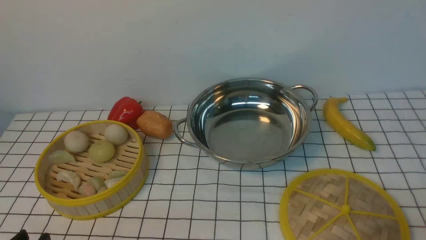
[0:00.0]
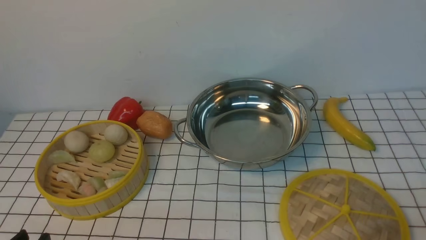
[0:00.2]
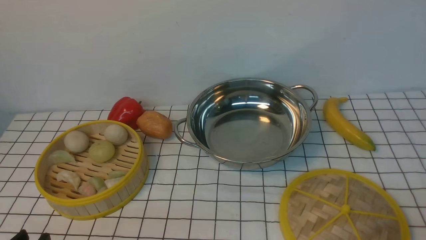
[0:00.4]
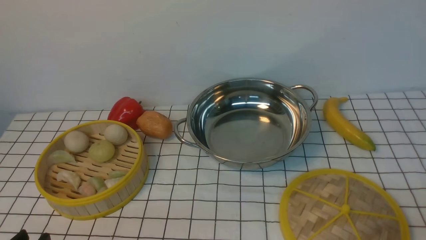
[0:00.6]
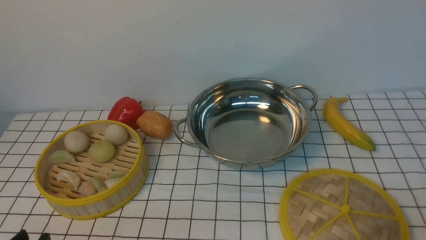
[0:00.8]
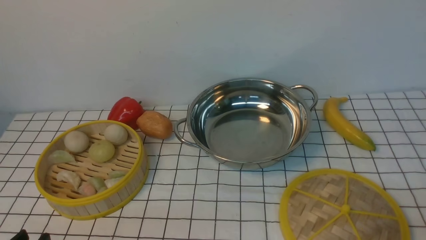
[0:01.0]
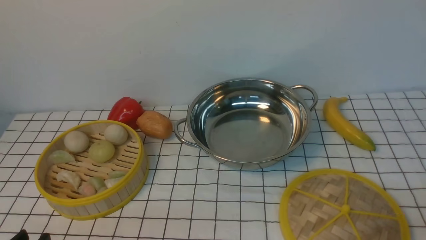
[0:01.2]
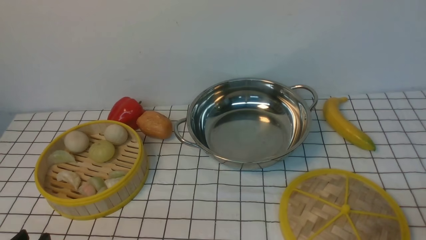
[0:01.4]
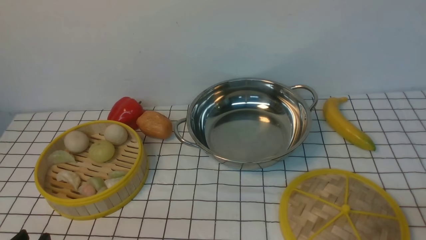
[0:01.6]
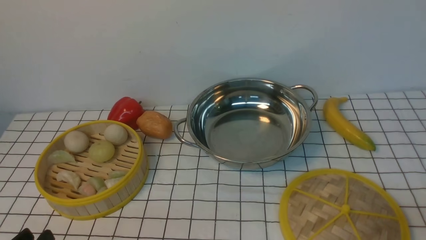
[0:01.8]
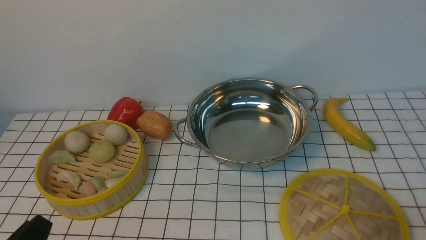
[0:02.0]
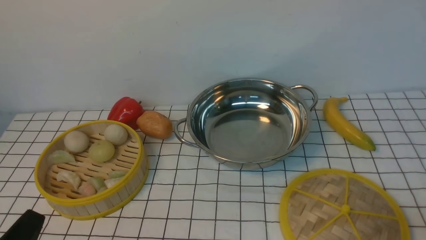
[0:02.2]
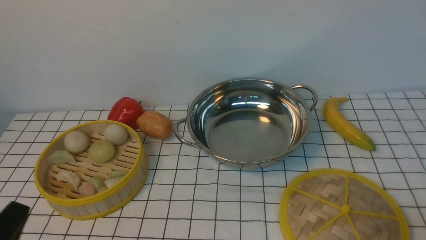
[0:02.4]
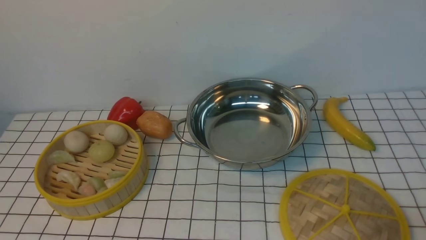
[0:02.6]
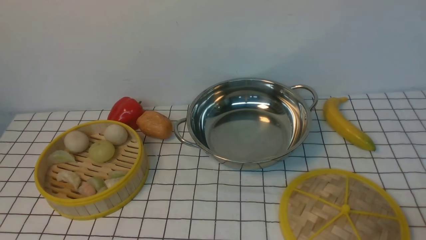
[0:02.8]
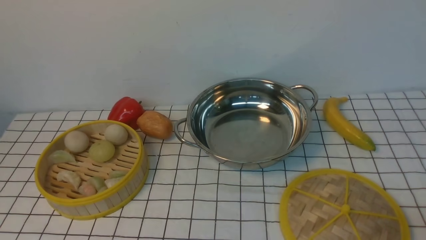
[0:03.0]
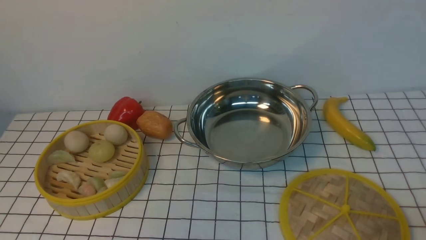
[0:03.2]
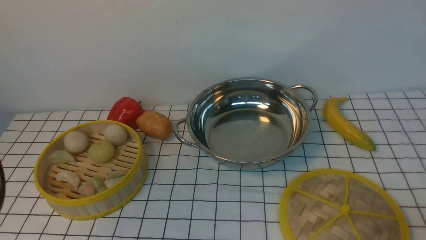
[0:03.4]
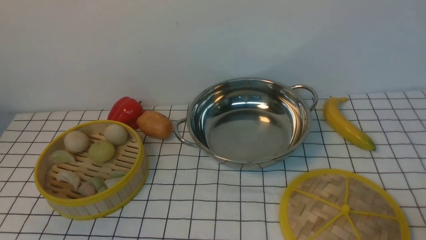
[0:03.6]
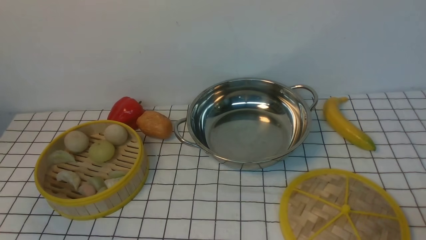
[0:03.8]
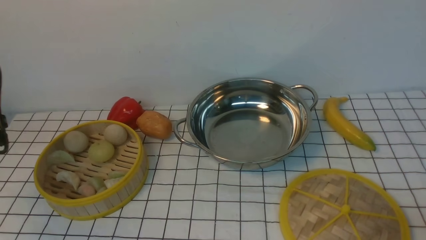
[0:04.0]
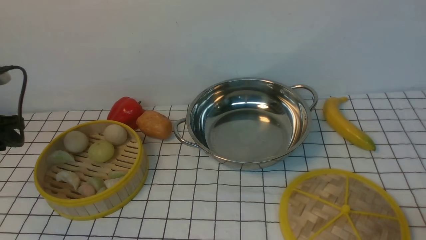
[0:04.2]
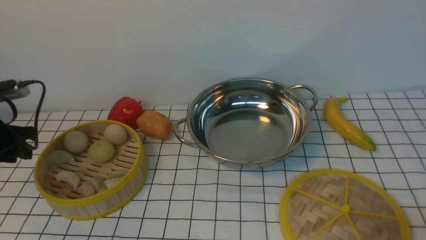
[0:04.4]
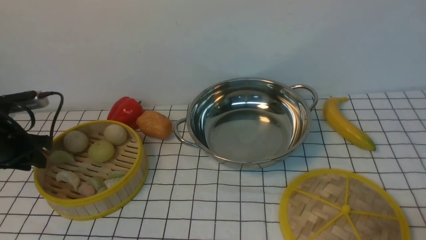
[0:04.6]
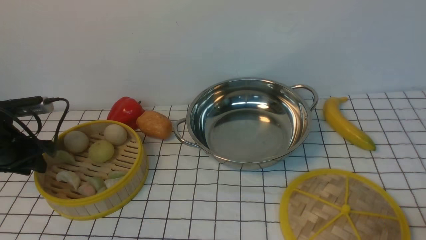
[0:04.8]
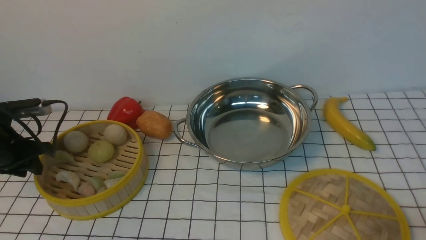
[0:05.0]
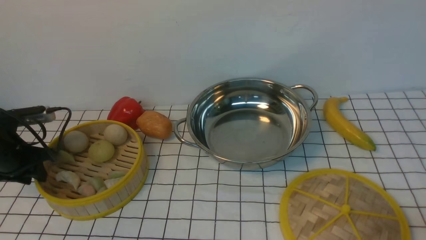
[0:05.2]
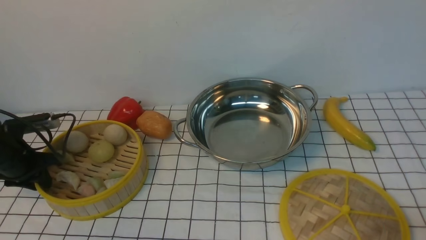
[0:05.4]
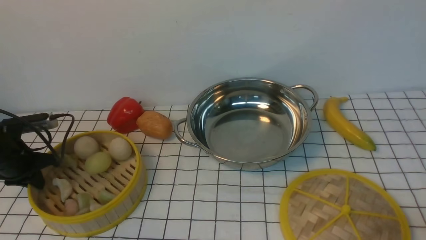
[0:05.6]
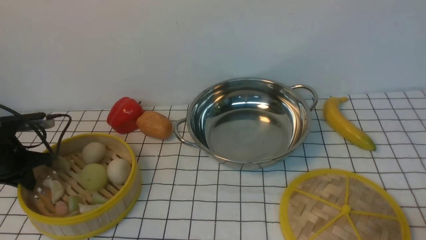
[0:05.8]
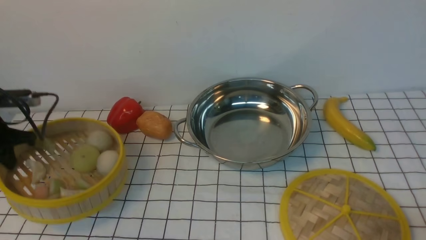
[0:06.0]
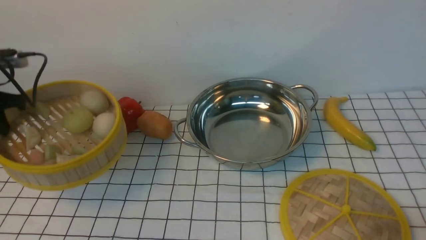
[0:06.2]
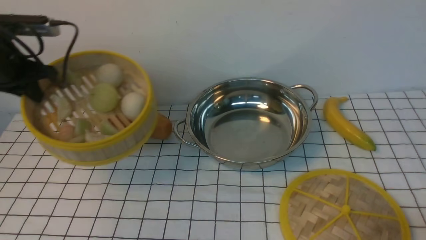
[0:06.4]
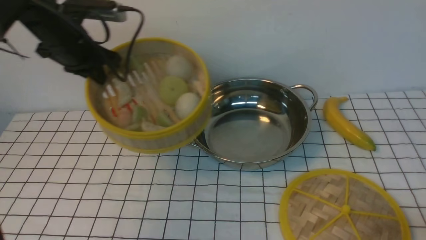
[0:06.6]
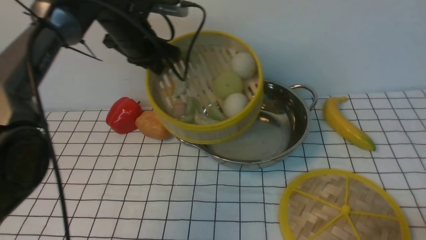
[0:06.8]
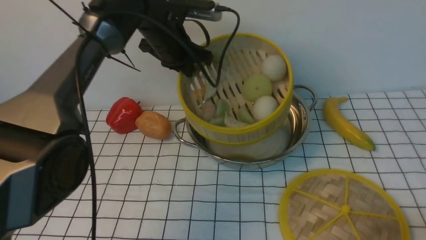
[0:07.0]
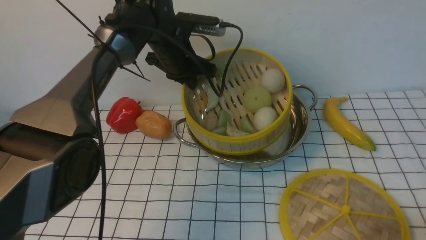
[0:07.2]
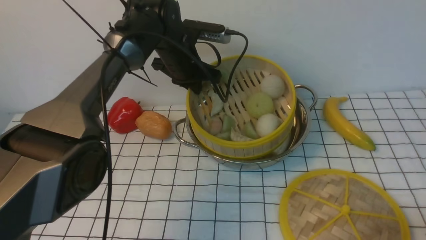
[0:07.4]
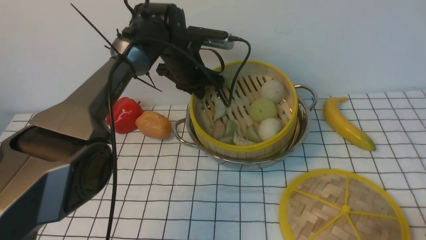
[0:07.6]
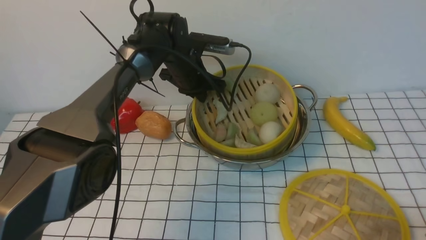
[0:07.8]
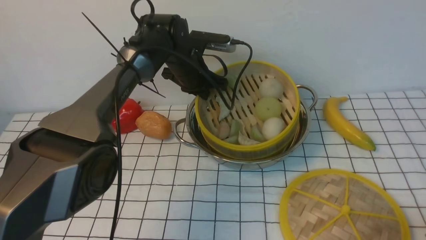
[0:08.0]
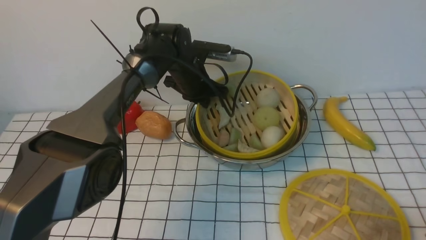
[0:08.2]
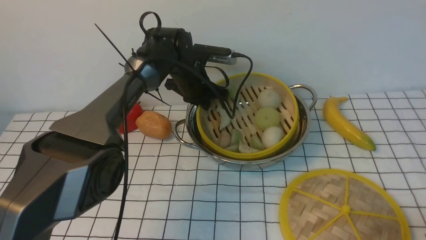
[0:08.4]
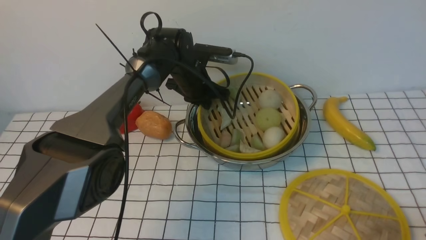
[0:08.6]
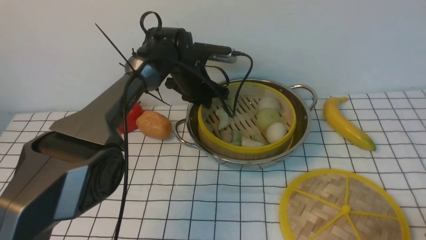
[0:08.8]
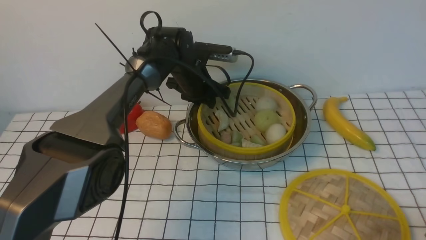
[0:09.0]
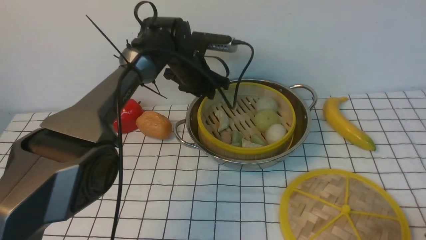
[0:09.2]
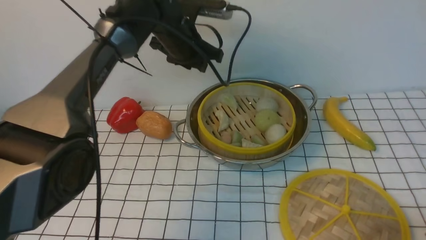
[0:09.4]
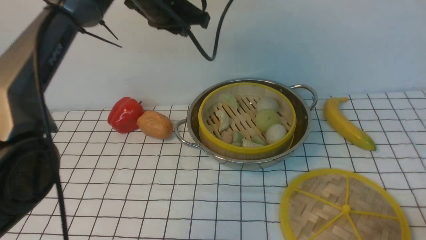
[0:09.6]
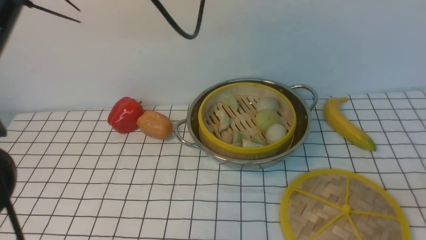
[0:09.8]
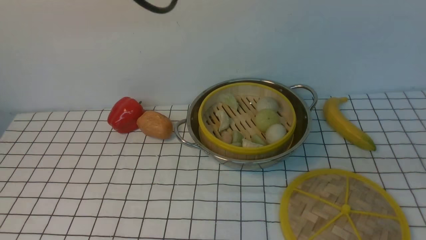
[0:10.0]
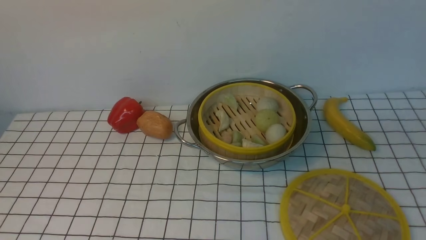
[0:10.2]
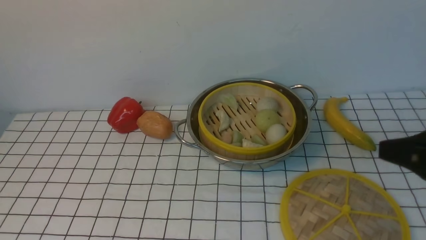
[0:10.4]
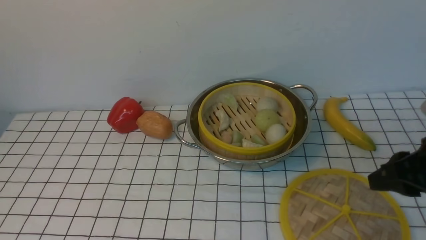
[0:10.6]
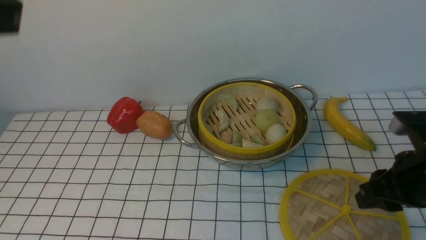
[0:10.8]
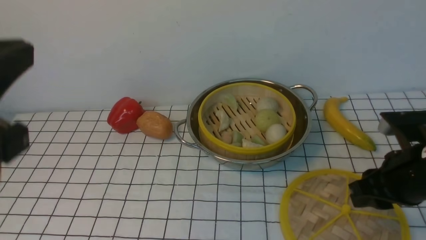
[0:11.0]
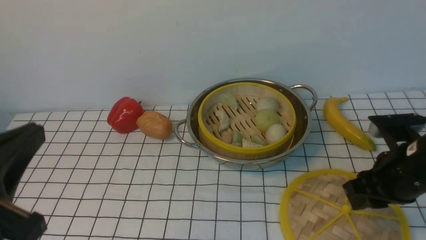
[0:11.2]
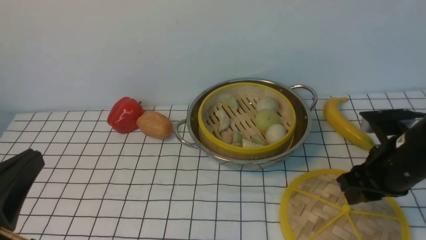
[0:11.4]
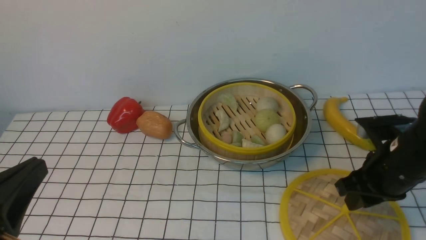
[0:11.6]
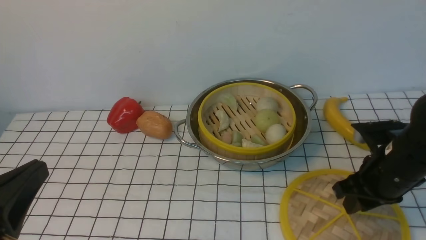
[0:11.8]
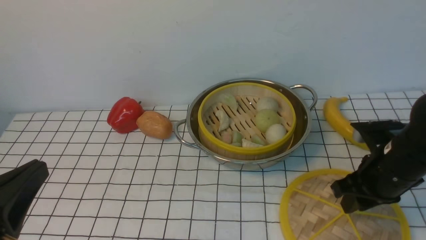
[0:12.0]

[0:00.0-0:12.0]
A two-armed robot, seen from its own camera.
Task of the whole recording: place the steamer in the pot on the white tablecloth, and put the lid on the steamer.
Step, 0:00.0 to 0:05.8: use the left arm to lift the steamer closest to it.
Step, 0:06.0 to 0:09.2: use the left arm to put the steamer into the iron steamer pot in the middle.
0:03.0 to 0:04.4: The left gripper travels forward, downward and to the left by approximately 35 cm.
0:04.4 to 0:06.0: The left gripper goes downward and returns, about 5 cm each way, and closes its fingers.
0:06.0 to 0:07.6: The left gripper is displaced to the right and forward by about 35 cm.
0:07.6 to 0:09.0: The left gripper opens its fingers.
0:09.0 to 0:10.4: The left gripper travels upward and backward by approximately 50 cm, and closes, while the right gripper goes roughly 15 cm upward and forward.
0:10.4 to 0:12.0: The left gripper moves downward and backward, approximately 30 cm. The right gripper travels downward and forward by roughly 15 cm.

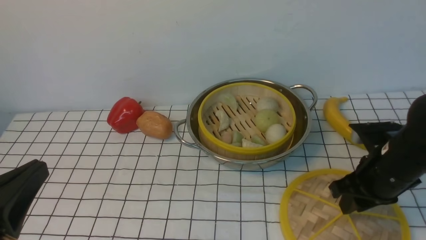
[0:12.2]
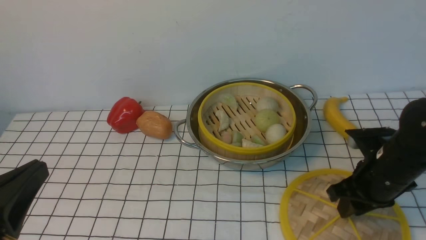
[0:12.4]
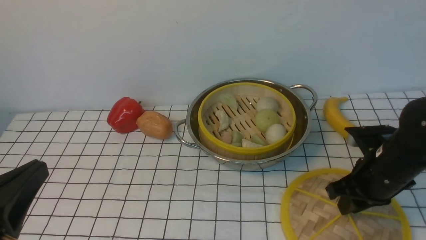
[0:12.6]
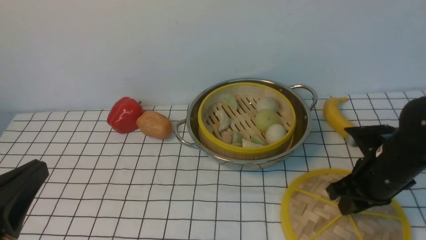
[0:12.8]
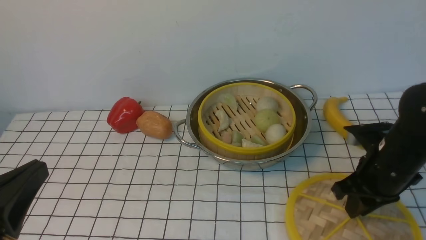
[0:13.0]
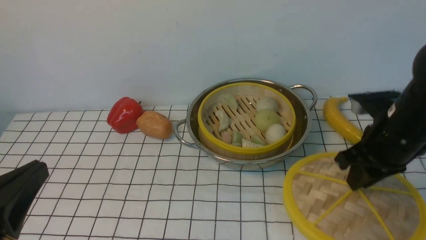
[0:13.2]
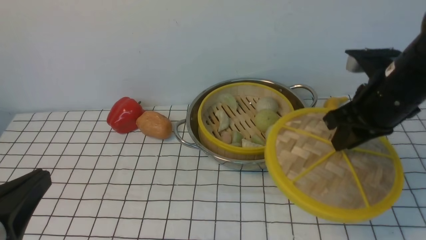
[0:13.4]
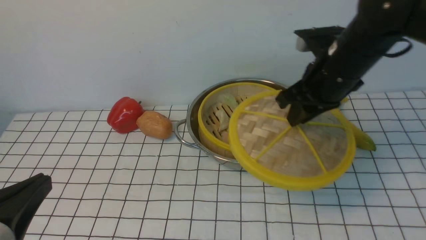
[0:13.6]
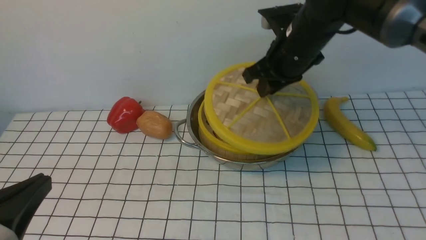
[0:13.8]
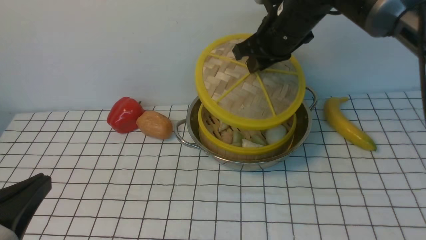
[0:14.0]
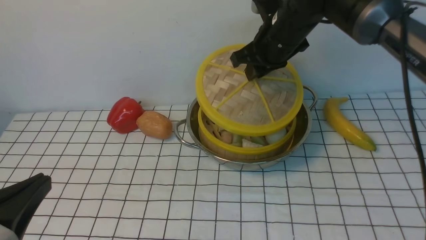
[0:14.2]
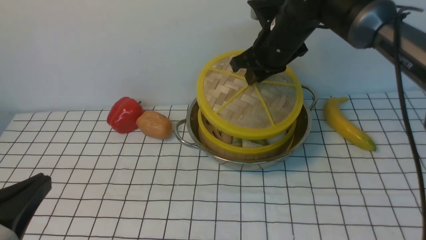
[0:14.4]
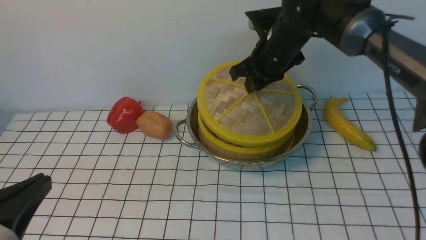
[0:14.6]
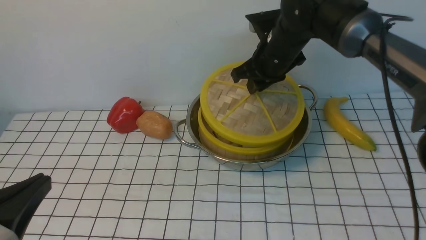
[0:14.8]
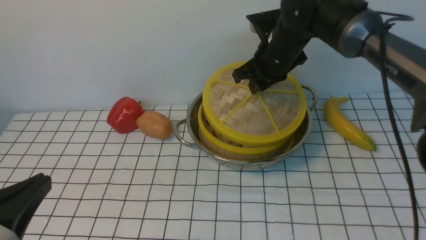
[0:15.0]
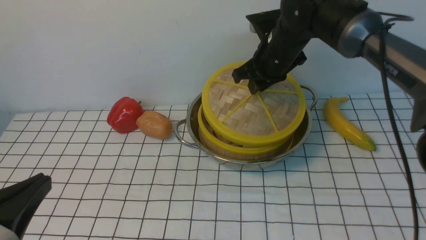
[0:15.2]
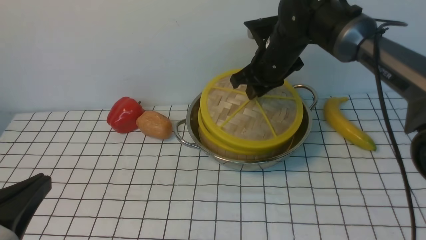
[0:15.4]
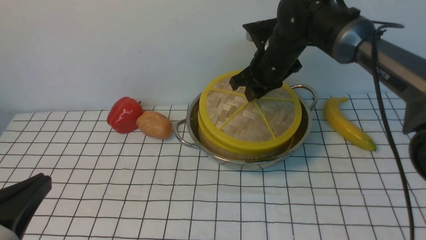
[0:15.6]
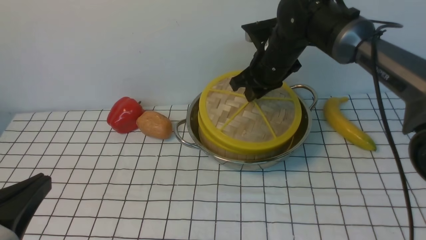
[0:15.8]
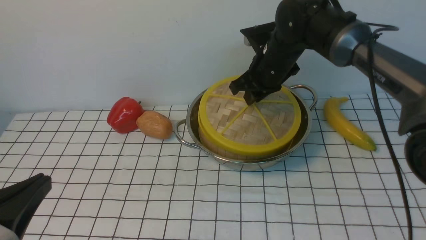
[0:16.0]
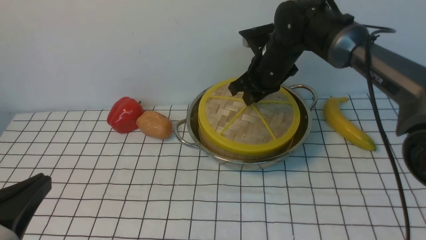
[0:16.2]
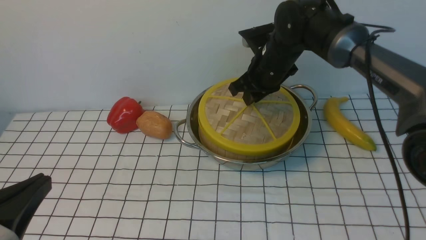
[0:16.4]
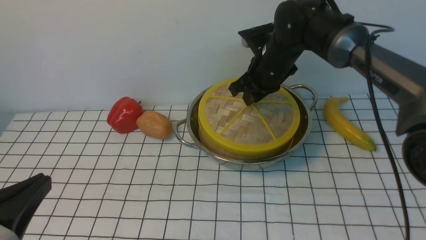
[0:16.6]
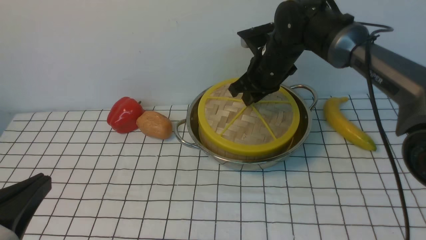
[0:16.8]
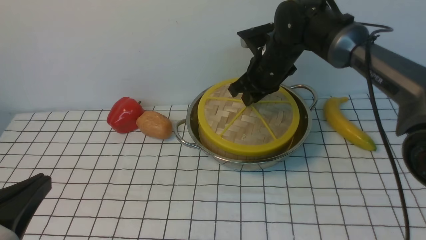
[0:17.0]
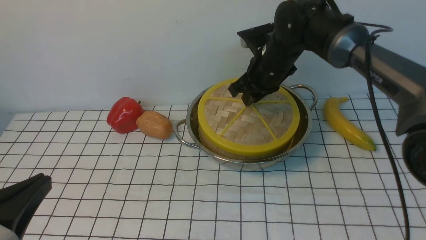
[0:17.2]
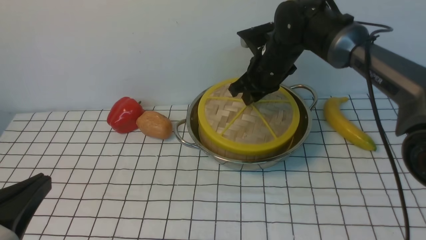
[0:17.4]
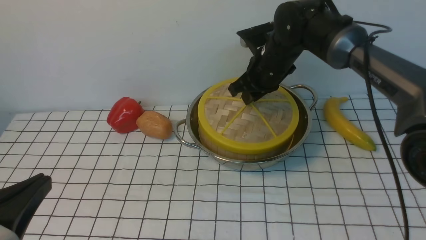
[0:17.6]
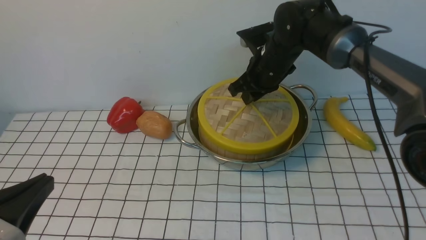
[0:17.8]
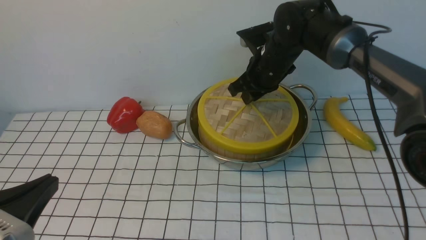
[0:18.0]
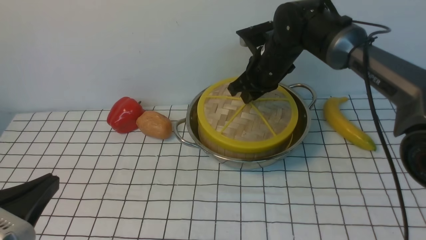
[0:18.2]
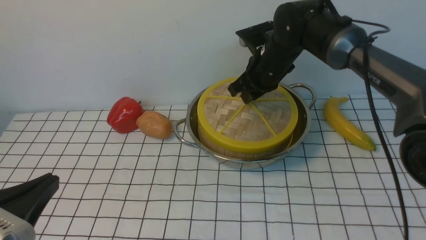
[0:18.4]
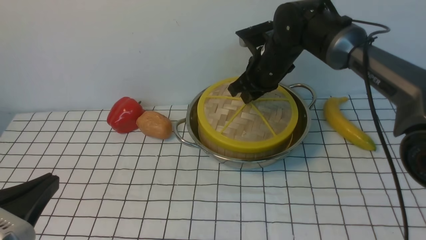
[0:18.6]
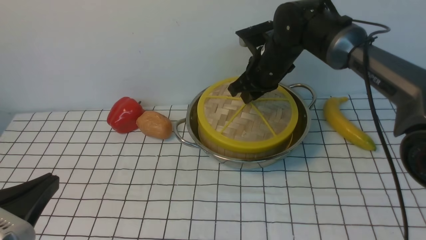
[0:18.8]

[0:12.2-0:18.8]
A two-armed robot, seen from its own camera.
Task of the whole recording: place the steamer in the pot on the white tablecloth, and put the lid on the steamer.
0:12.2 to 0:13.8: The right gripper moves forward, upward and to the left, some 20 cm.
0:13.8 to 0:15.4: The right gripper shifts some 5 cm downward.
0:15.4 to 0:17.2: The grippers make only small movements.
0:17.2 to 0:18.8: Neither gripper changes place.
